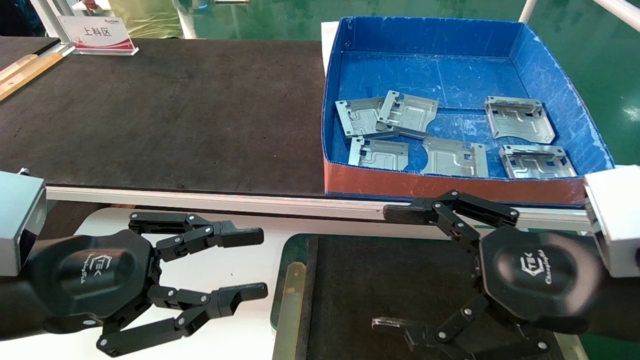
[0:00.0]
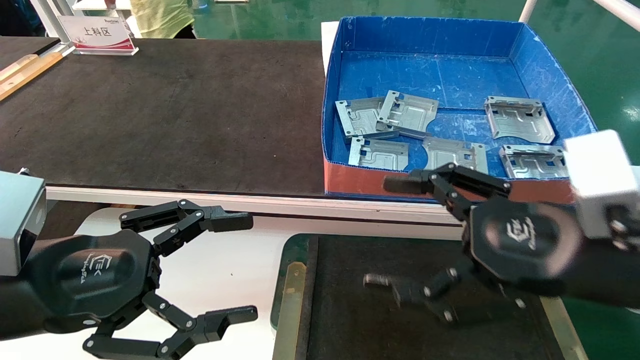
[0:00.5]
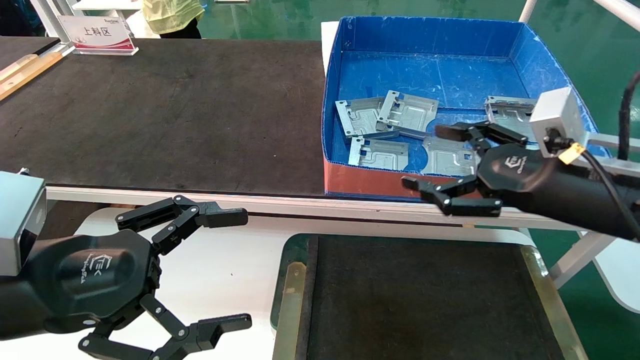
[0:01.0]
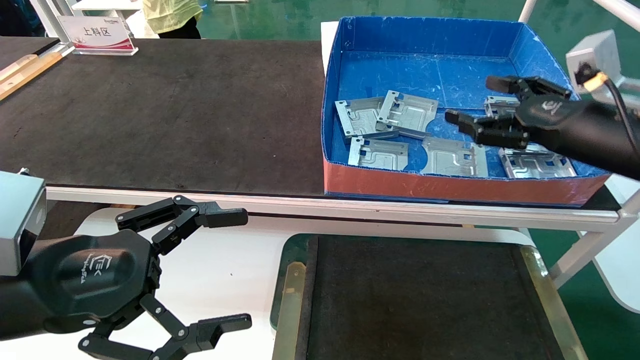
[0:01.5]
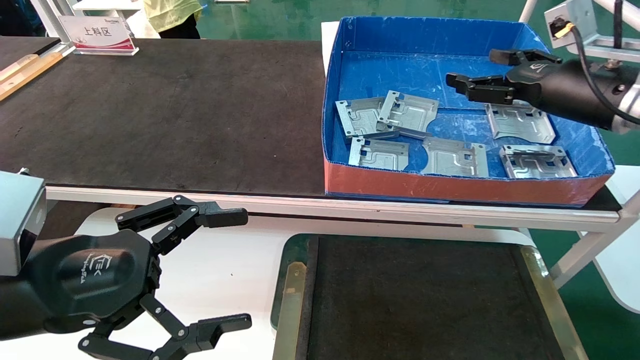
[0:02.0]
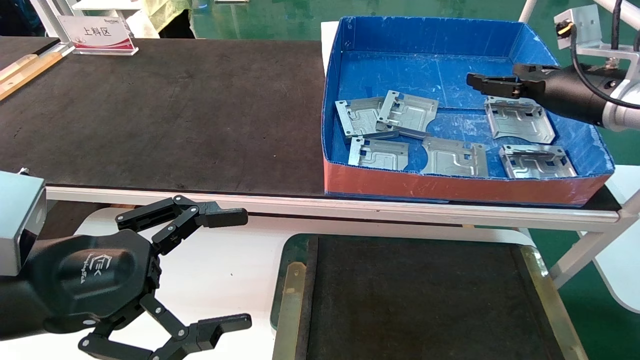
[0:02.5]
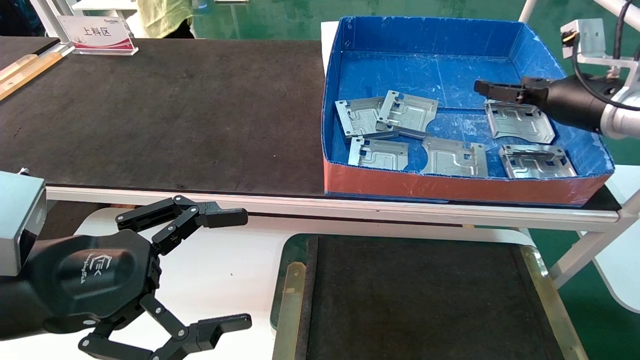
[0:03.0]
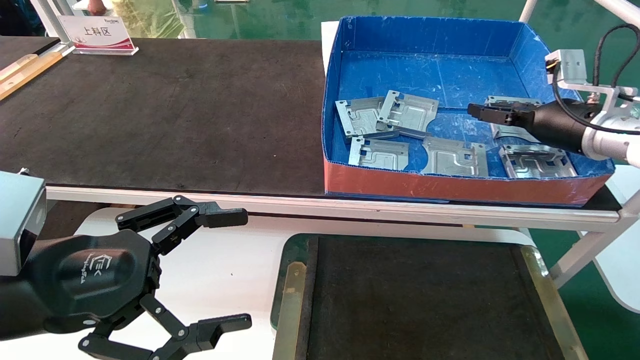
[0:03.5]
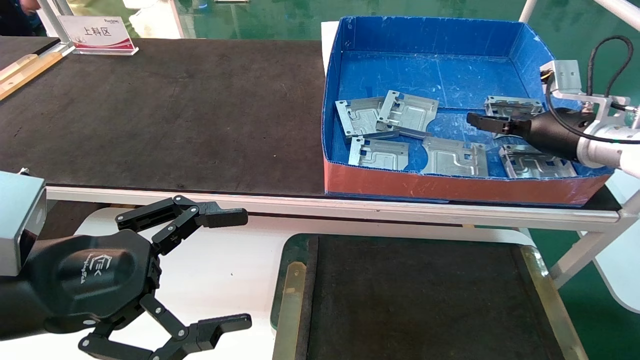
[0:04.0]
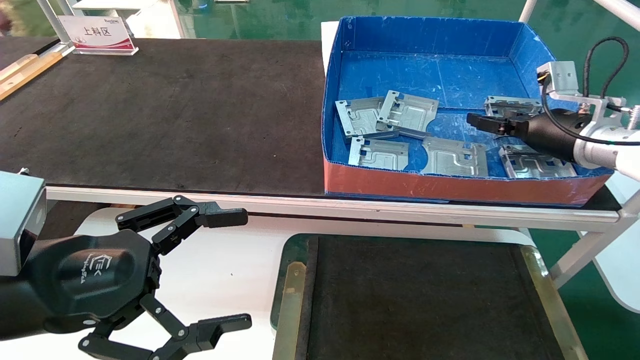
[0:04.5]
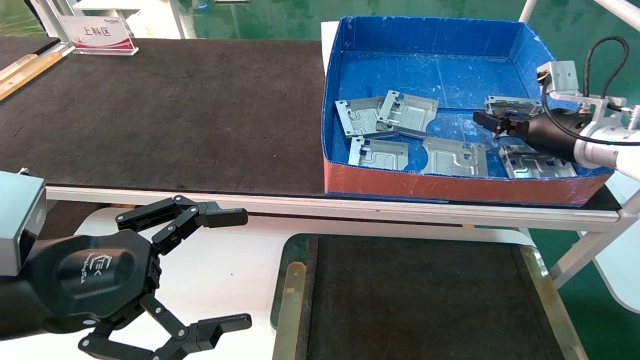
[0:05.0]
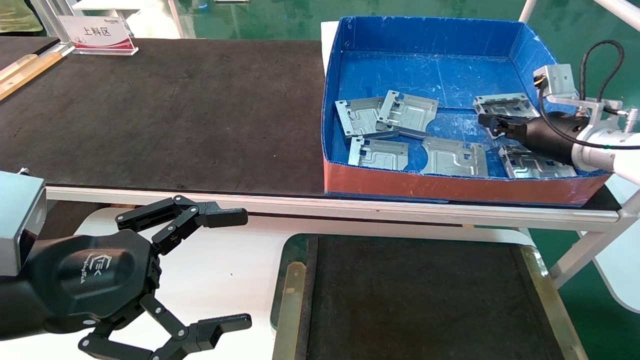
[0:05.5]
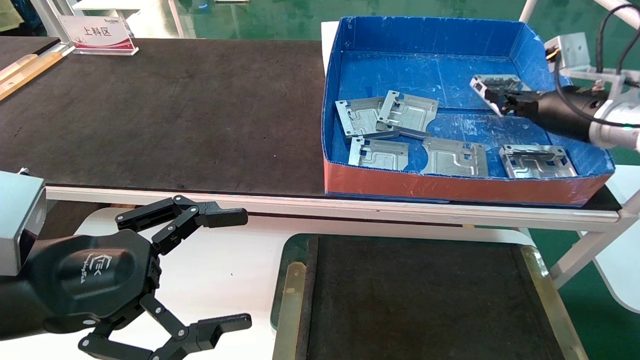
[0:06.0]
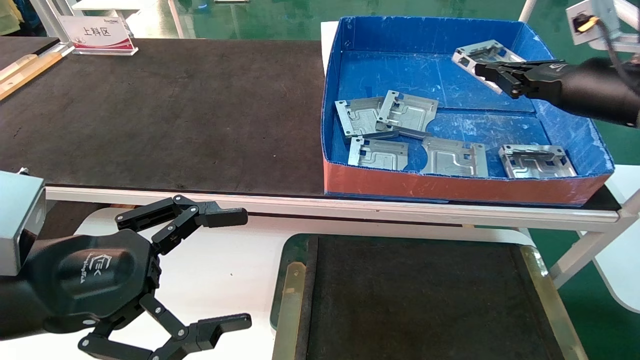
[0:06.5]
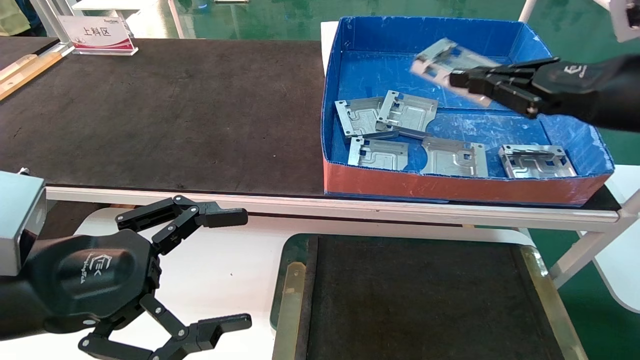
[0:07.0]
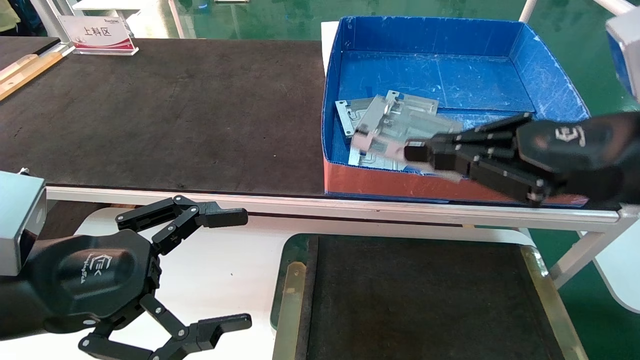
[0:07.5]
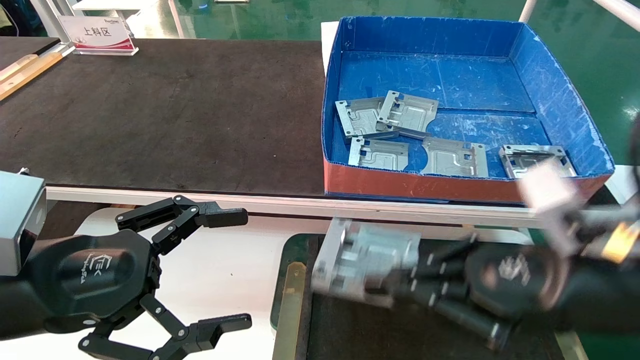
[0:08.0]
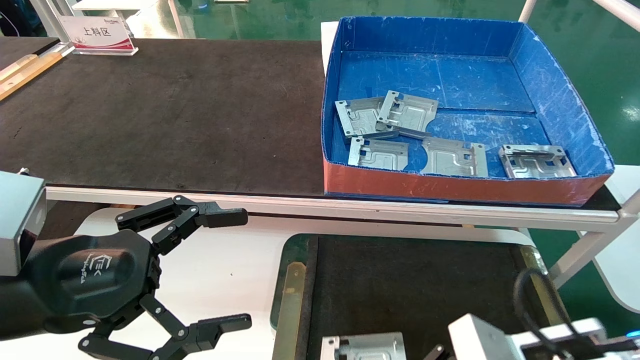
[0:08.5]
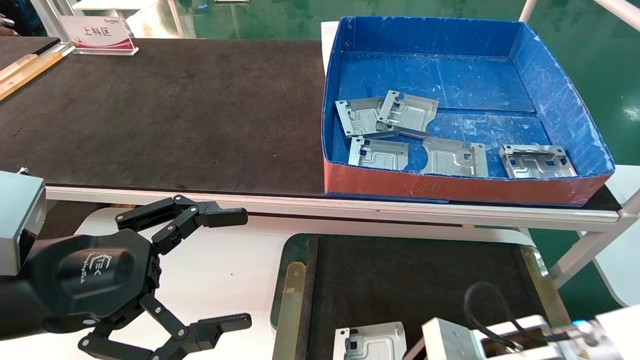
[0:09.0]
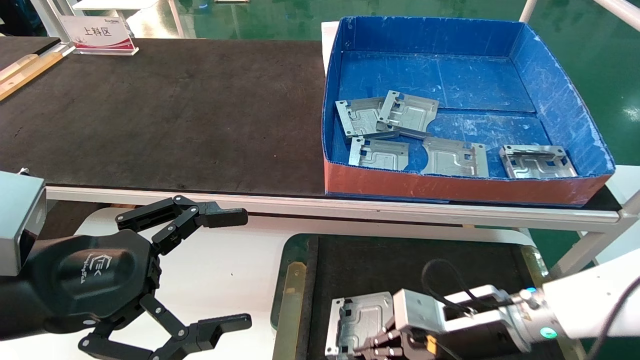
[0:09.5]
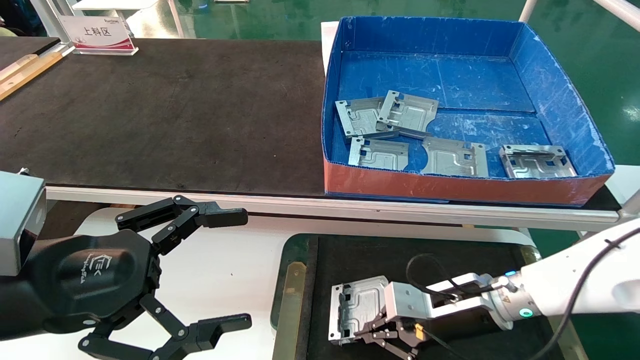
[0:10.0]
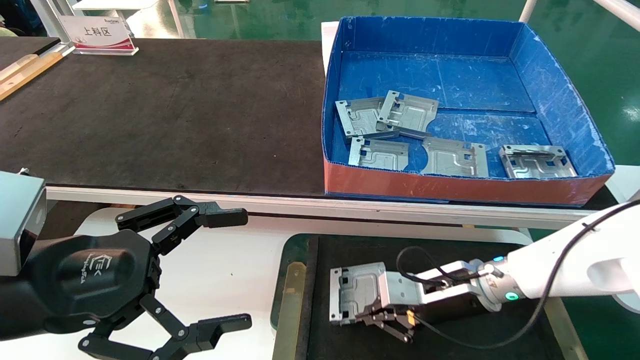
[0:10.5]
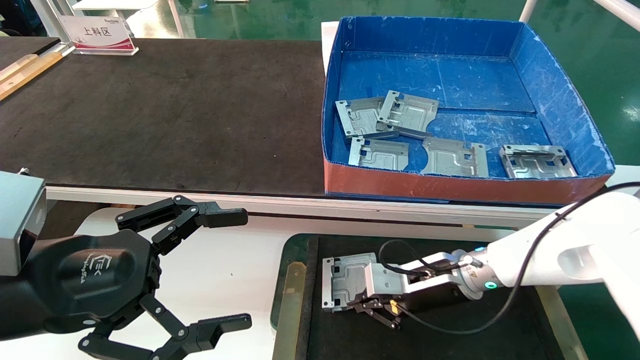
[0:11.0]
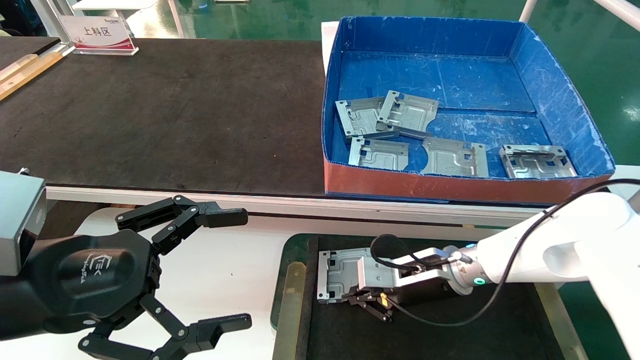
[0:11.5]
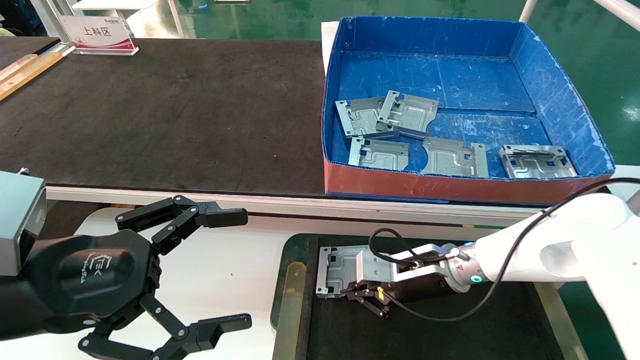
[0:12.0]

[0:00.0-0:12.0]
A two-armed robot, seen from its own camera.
Task of the whole recording: pick up parts and place them into a black container.
Step, 0:01.0 to 0:05.5: Pick up the hard drive bracket from the feeding area.
0:00.0 to 0:02.0: The right gripper goes about 25 cm forward, upward and to the right; the left gripper opens.
0:02.0 to 0:04.0: The right gripper shifts approximately 10 cm forward and downward.
0:04.0 to 0:06.0: The right gripper closes its fingers.
0:06.0 to 0:08.0: The right gripper shifts some 25 cm backward and to the left.
0:08.0 to 0:10.0: The right gripper heads forward and downward, covering about 20 cm.
0:10.0 to 0:12.0: The right gripper heads forward, covering approximately 5 cm.

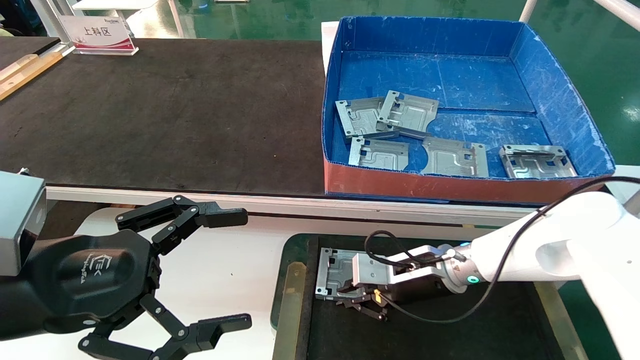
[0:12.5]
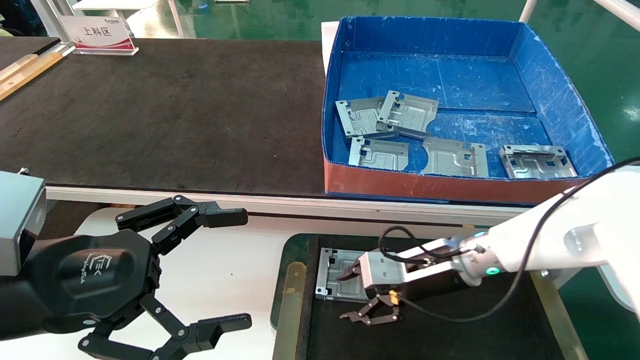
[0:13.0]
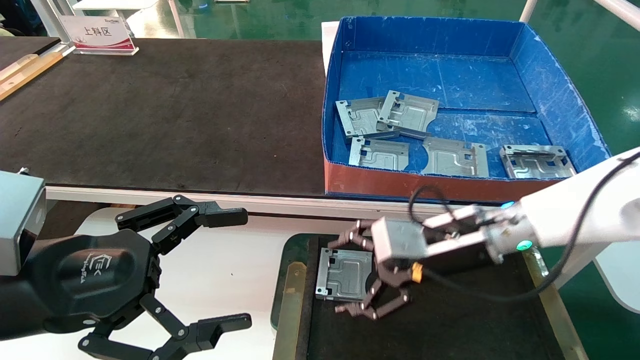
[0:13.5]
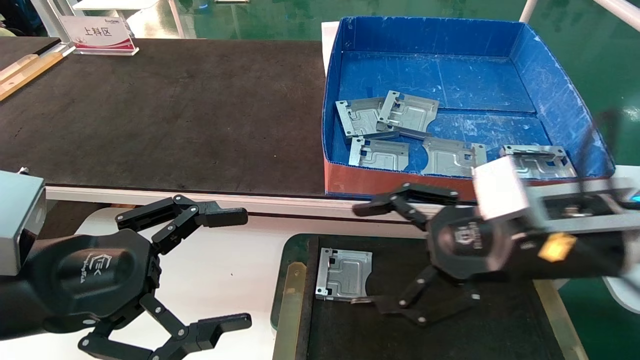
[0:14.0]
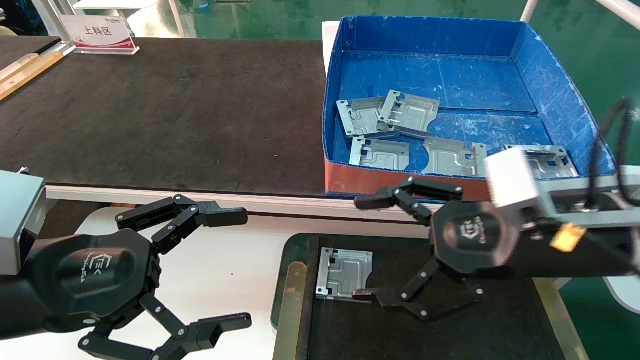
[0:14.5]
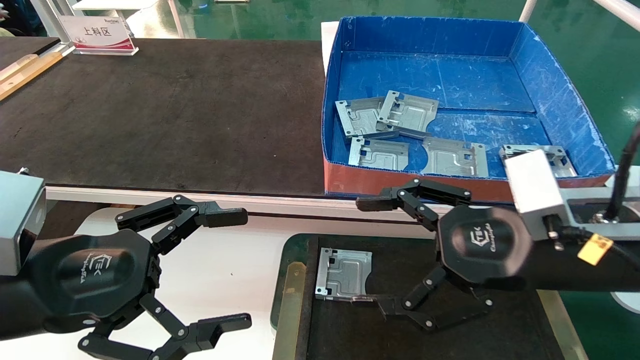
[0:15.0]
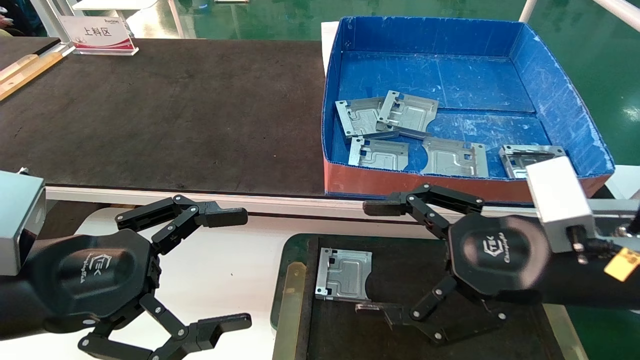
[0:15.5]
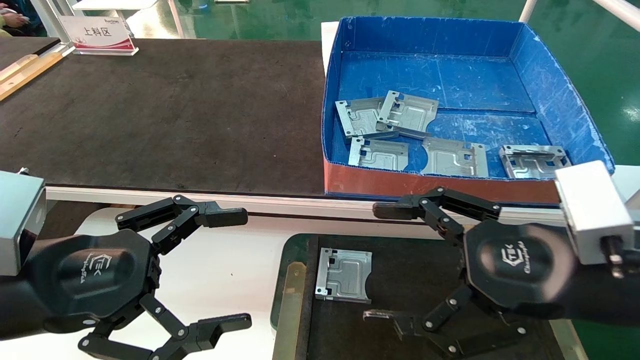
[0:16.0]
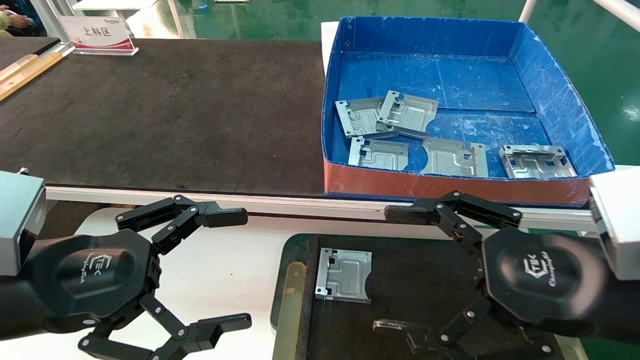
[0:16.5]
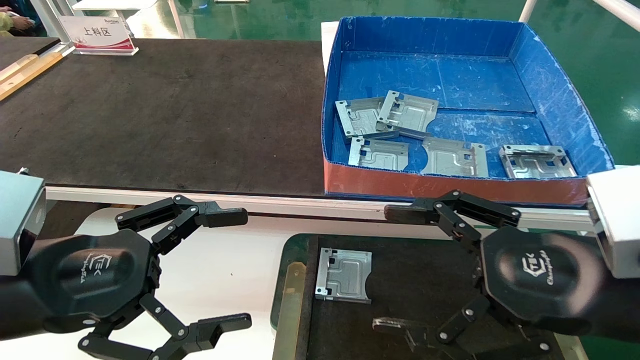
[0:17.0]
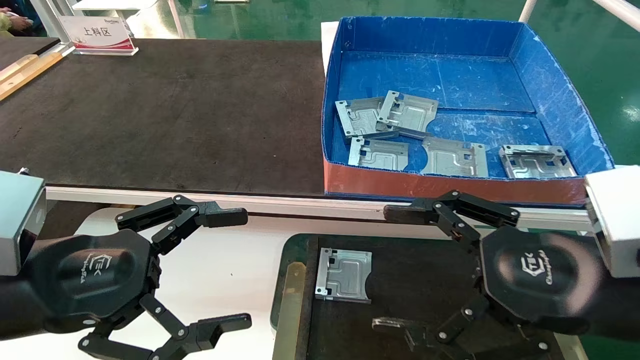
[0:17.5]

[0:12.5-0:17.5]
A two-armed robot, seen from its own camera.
Task of the whole recording: pick up parts and place them into a black container.
0:12.5 to 0:15.0: The right gripper moves backward and upward, about 20 cm, and opens up.
0:15.0 to 0:17.5: The right gripper shifts approximately 5 cm backward.
